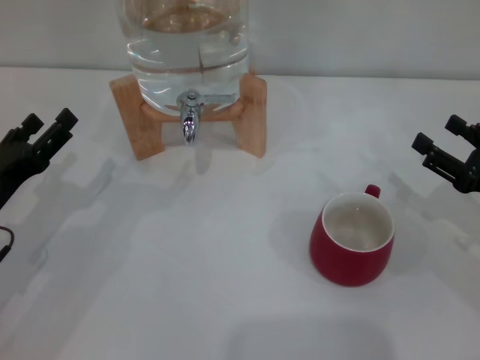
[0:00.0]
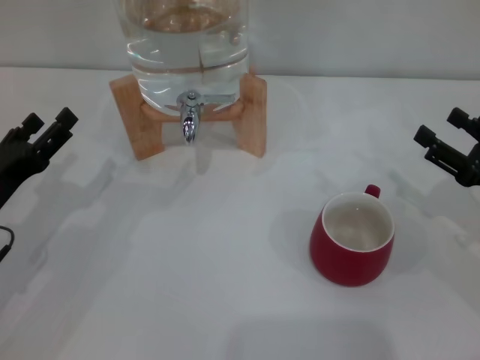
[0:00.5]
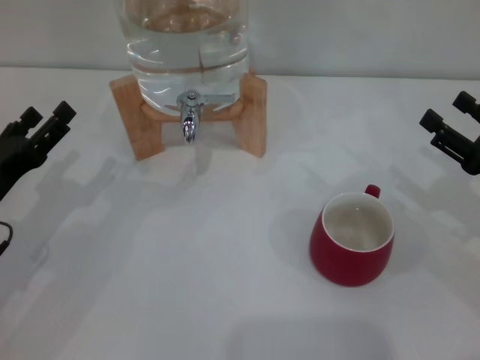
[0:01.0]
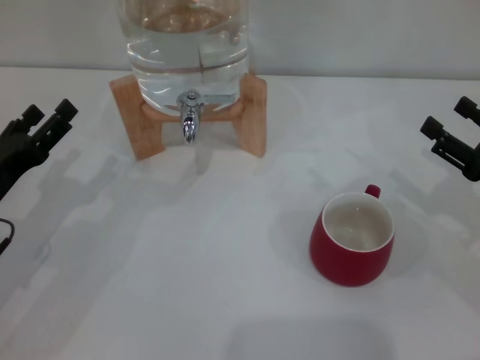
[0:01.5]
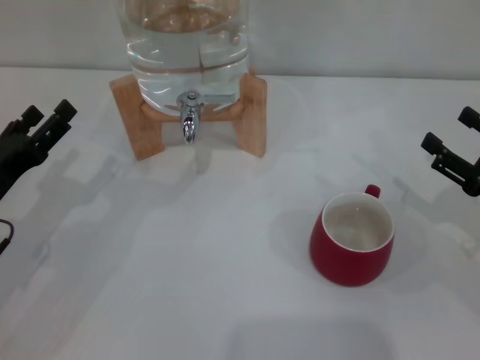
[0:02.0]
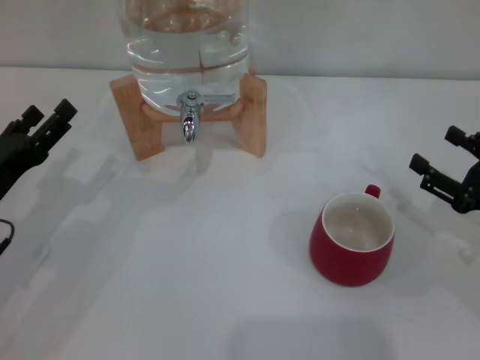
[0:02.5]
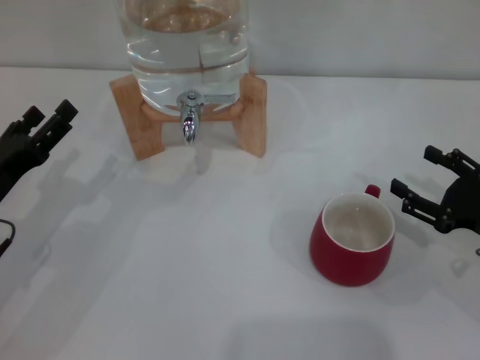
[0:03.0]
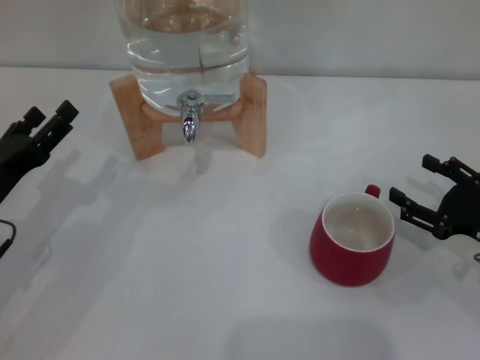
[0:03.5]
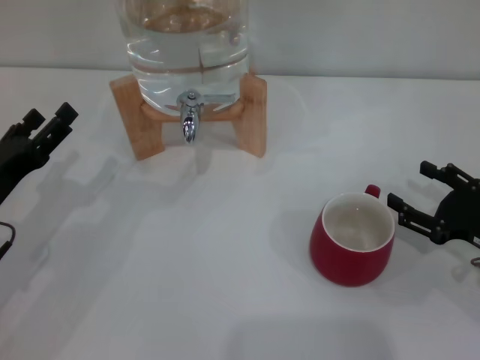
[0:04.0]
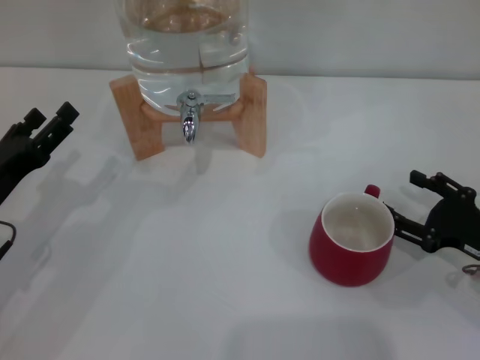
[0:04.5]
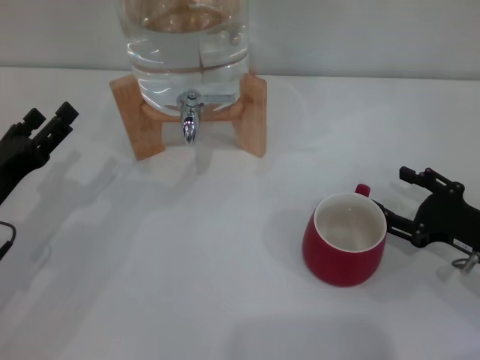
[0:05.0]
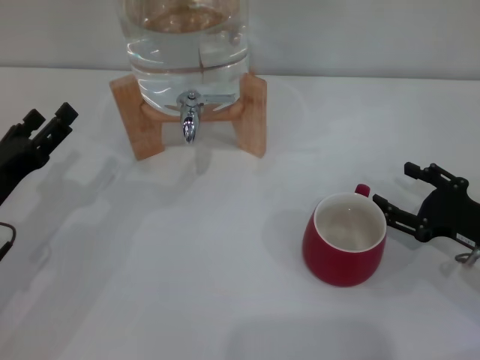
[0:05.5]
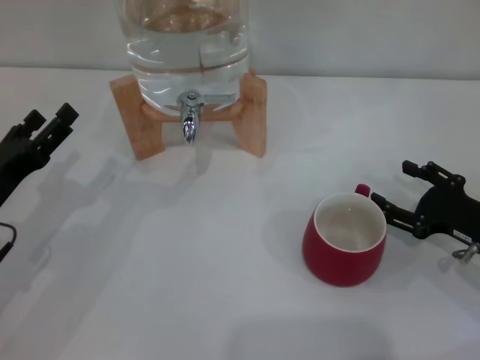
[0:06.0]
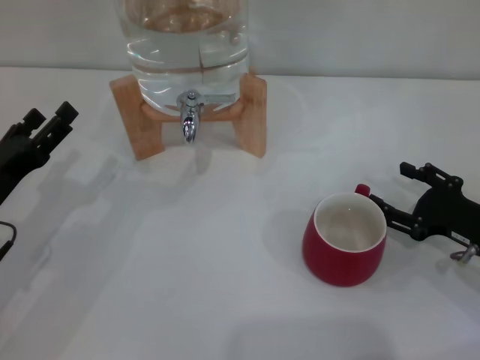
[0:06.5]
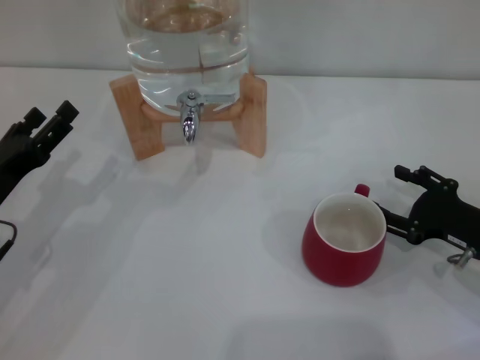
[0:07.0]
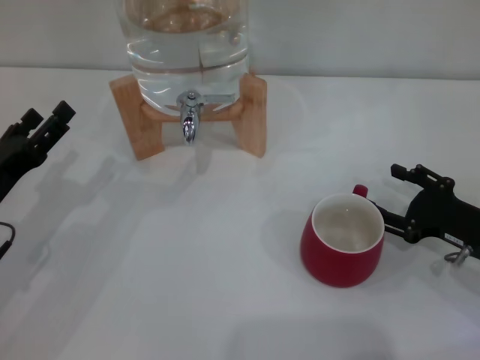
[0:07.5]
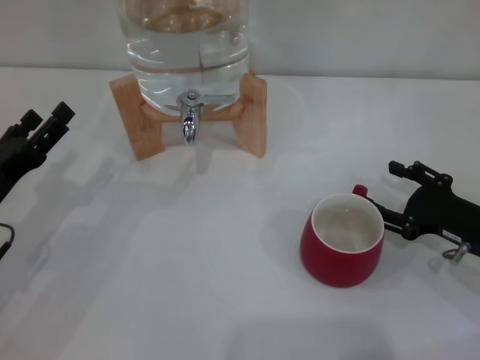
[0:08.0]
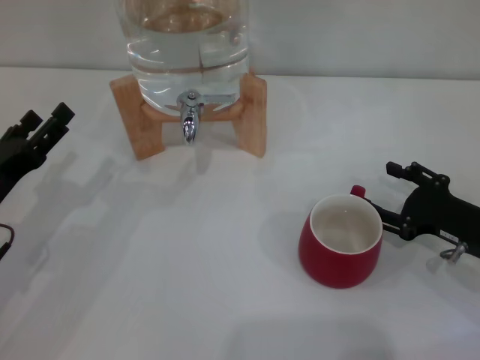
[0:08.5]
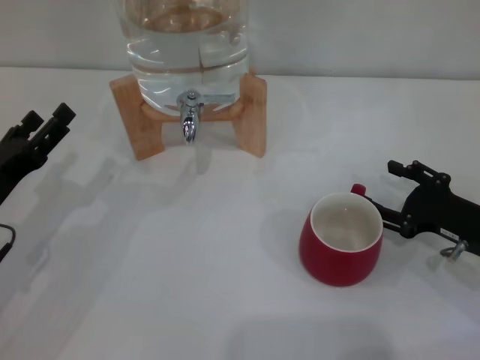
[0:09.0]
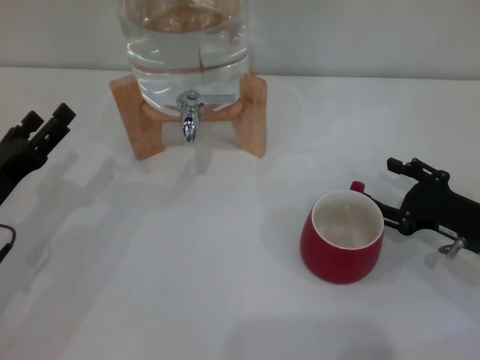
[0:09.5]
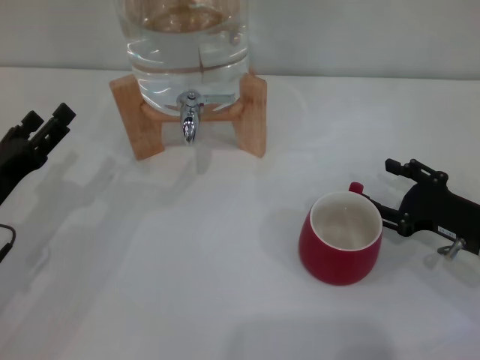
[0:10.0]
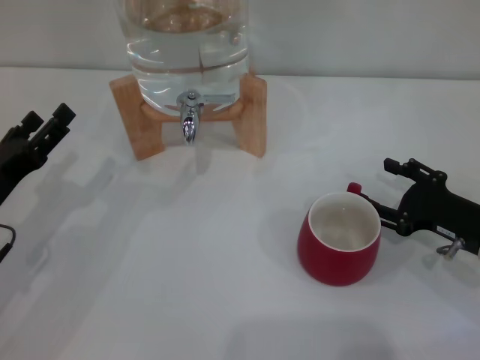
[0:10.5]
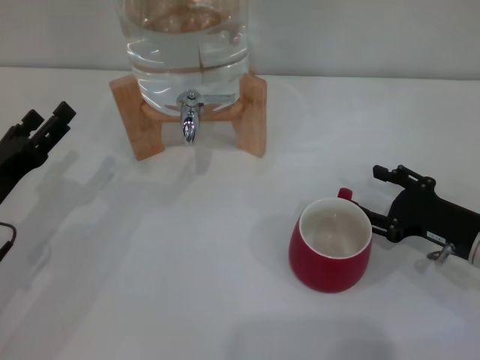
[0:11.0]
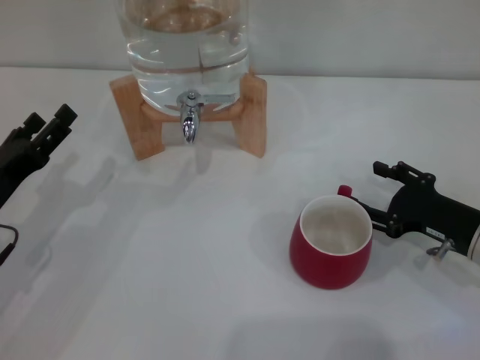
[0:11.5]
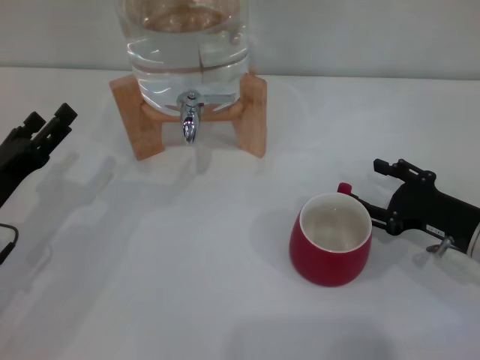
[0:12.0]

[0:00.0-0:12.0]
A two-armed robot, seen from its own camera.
Task of the whole recording: the right gripper pick up the red cup and place it horizontally under the faucet, the left gripper turn on the faucet to fill the cup, and then turn off the faucet.
0:00.0 to 0:02.0: The grippers make only small movements.
0:02.0 to 0:04.0: There are only small adjustments of the grippers.
0:04.0 to 0:06.0: There are only small adjustments of the grippers.
0:06.0 to 0:08.0: The two grippers keep their place.
0:08.0 to 0:10.0: The two grippers keep their place.
0:10.0 to 0:12.0: Neither gripper changes place.

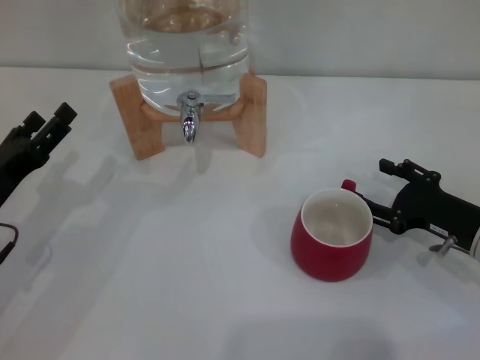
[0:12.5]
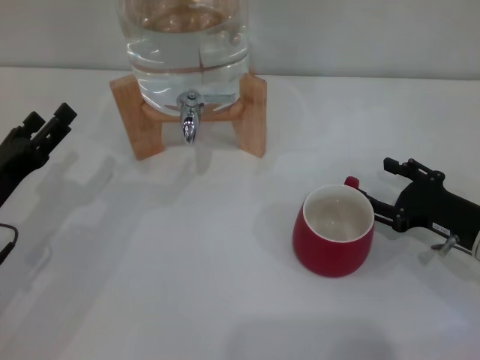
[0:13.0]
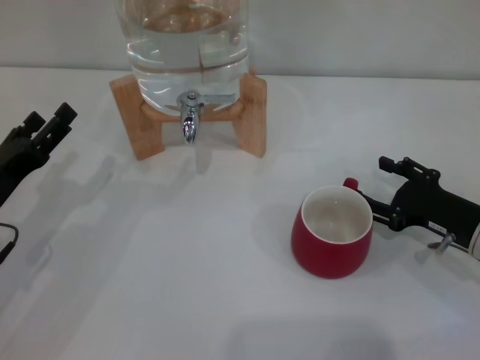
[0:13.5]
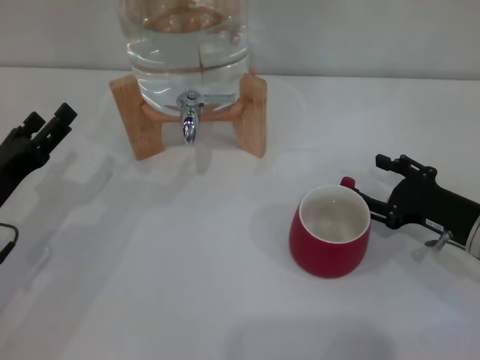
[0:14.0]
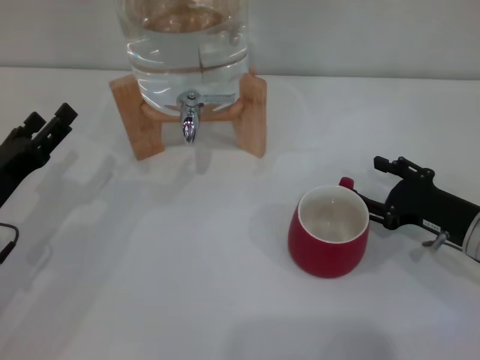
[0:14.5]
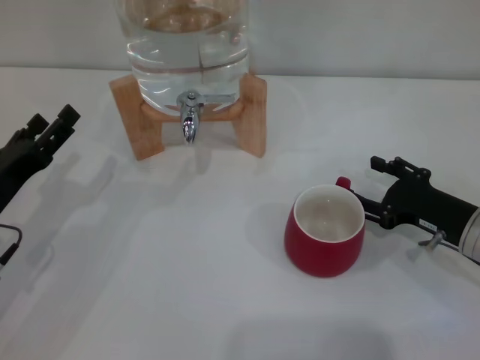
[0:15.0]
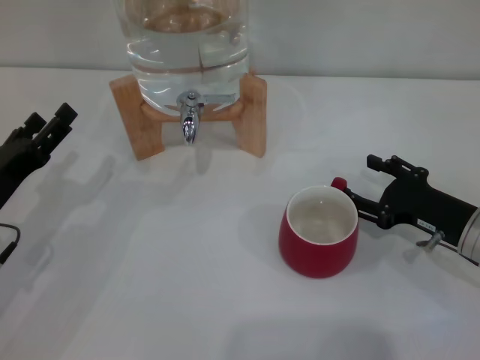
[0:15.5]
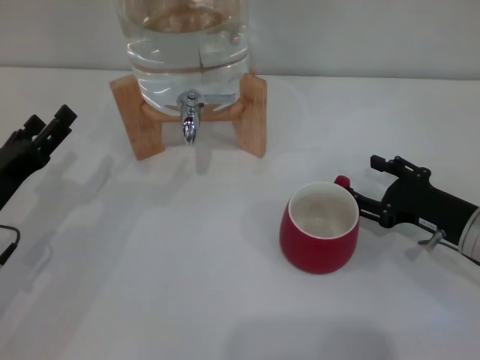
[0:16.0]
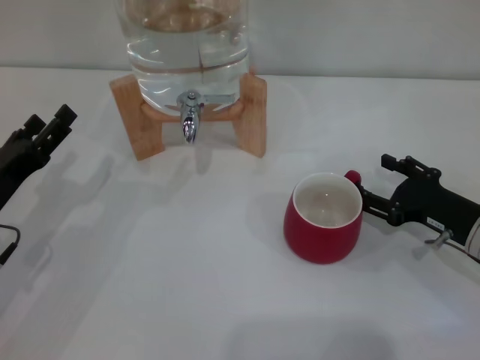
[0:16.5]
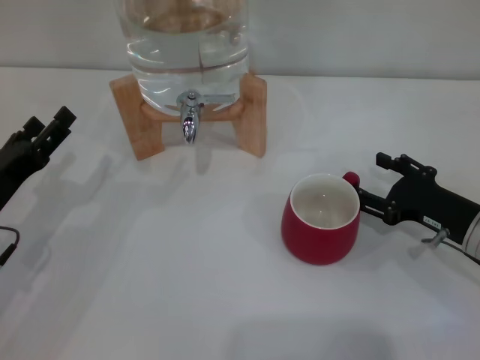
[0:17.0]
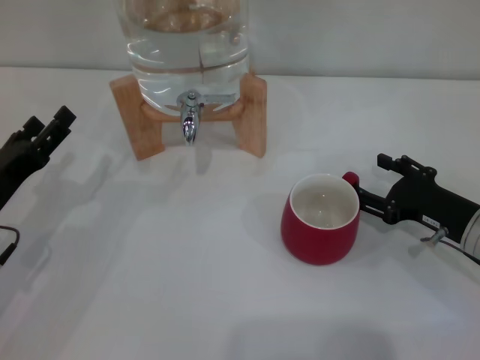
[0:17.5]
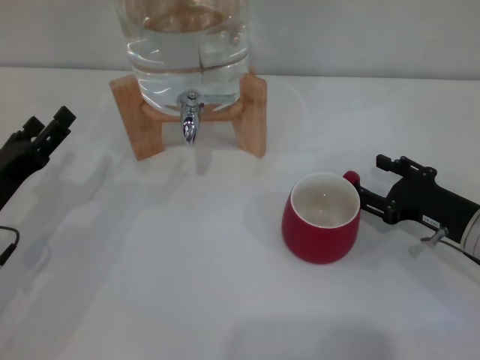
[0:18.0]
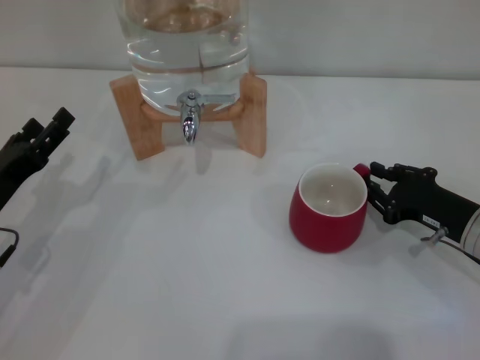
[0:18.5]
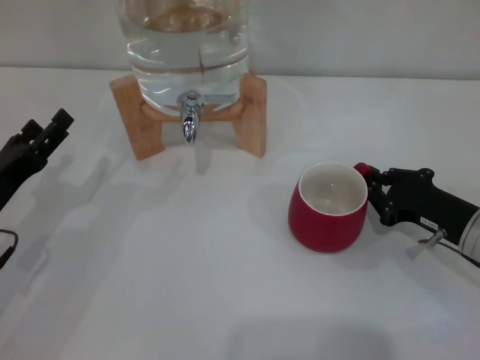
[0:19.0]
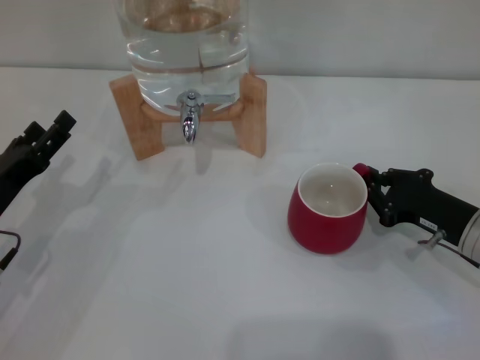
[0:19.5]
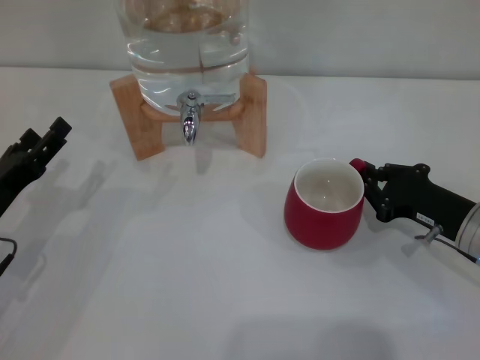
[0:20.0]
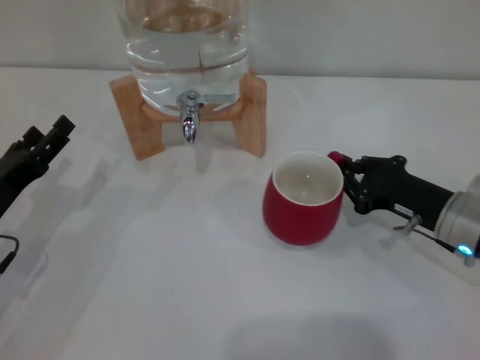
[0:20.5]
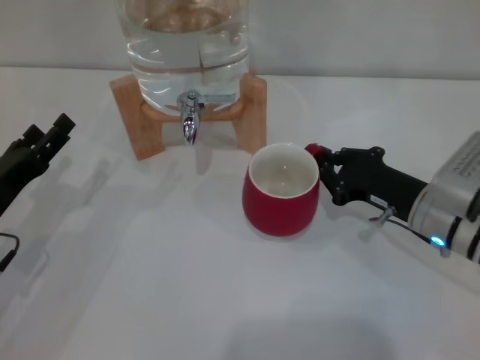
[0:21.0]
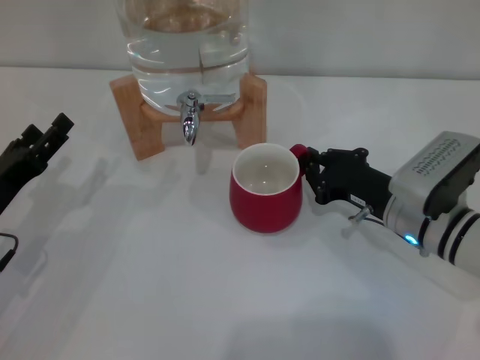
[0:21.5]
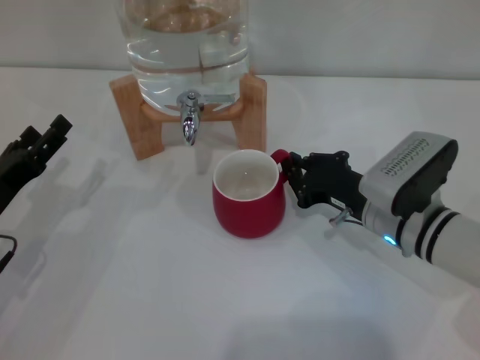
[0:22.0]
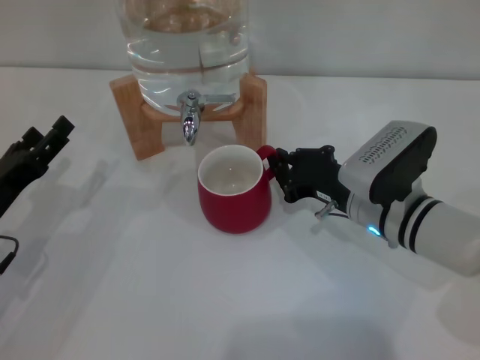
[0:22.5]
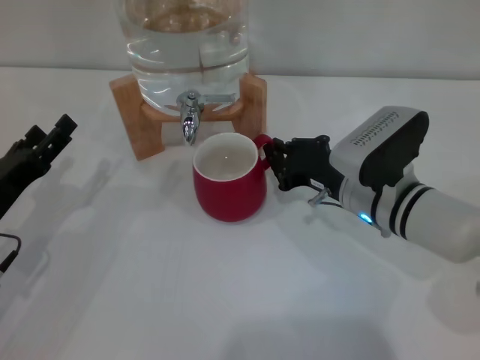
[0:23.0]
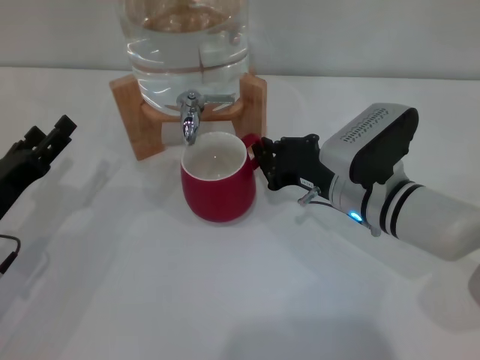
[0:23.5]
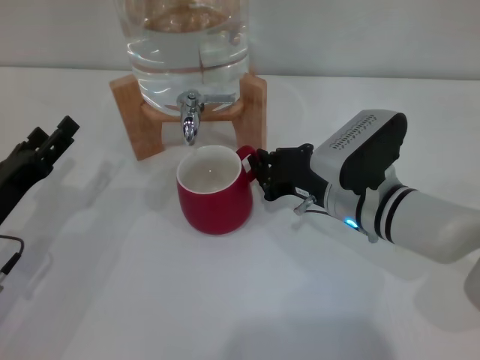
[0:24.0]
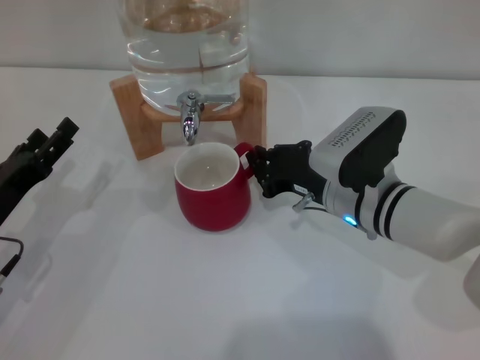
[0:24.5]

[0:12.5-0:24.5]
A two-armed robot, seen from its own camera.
Task of the whole recording: the right gripper pick up the red cup and place it horizontally under the faucet, the left gripper turn on the faucet to fill the cup, and then turn off the faucet.
0:12.5 to 0:14.5: Both grippers stay about where they are.
0:14.5 to 0:16.5: Both grippers stay about where they are.
0:16.5 to 0:18.5: The right gripper closes its fingers.
0:18.5 to 0:20.5: The right gripper closes.
0:20.5 to 0:22.5: The right gripper heads to the left, covering about 10 cm.
0:22.5 to 0:24.5: The grippers make only small movements.

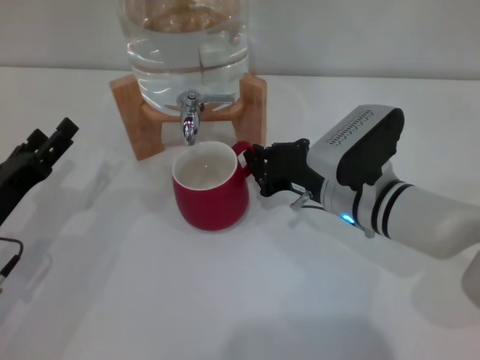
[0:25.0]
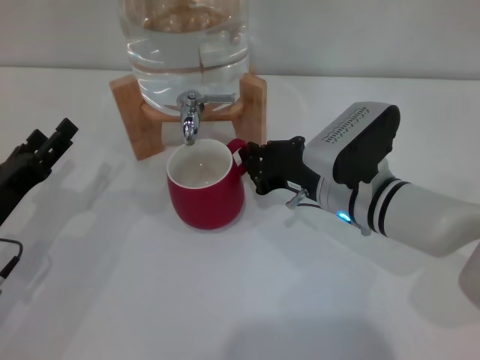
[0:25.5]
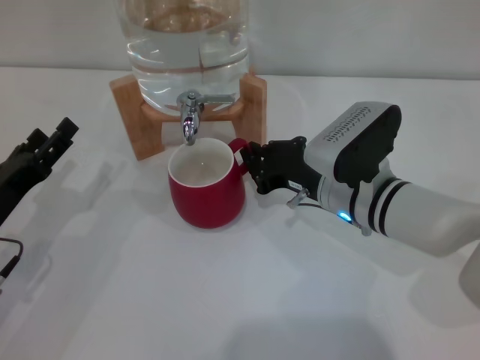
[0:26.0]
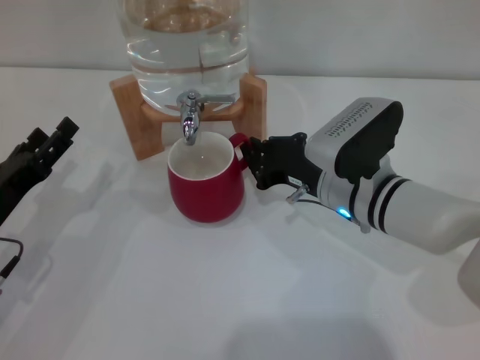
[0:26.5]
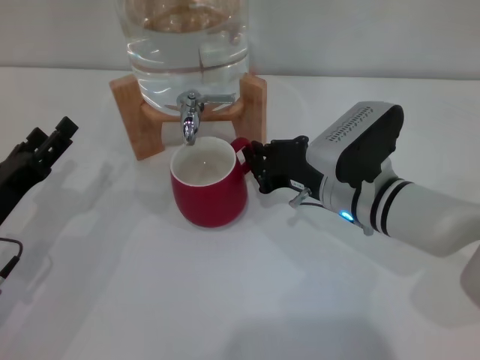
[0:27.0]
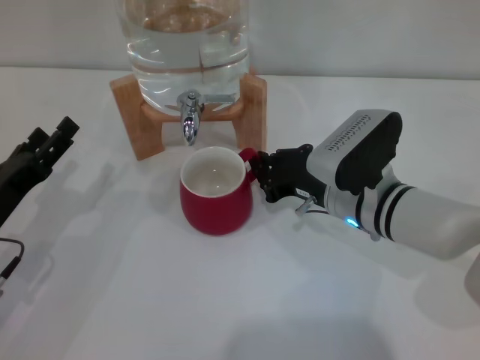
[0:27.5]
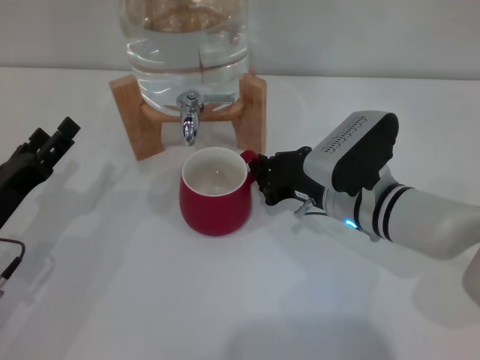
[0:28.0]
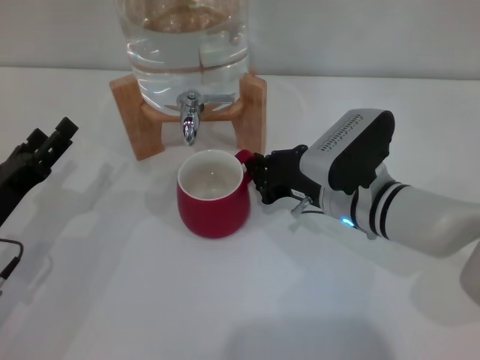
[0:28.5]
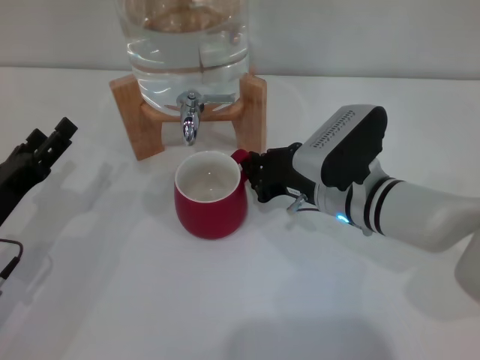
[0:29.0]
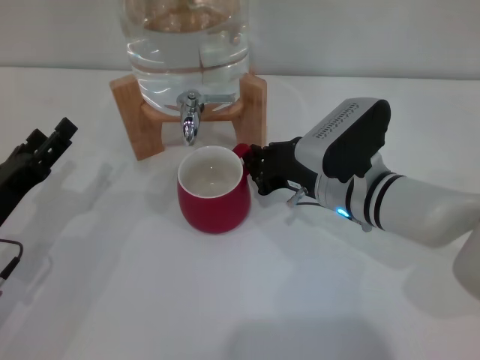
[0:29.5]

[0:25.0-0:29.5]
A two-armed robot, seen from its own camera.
Task of the whole recording: the right gripper pick up the red cup and place it horizontally under the faucet, the left gripper turn on the faucet to fill the cup, and then turn off the faucet.
0:25.0 to 0:27.0: Neither gripper changes place.
0:27.0 to 0:29.5: The grippers make only small movements.
